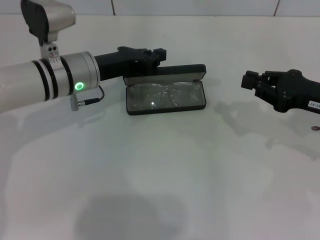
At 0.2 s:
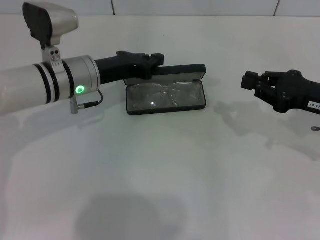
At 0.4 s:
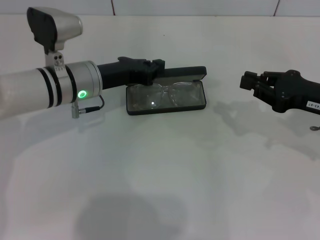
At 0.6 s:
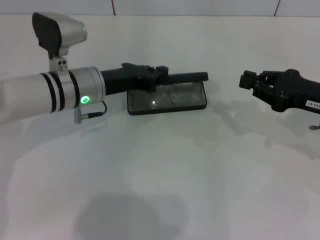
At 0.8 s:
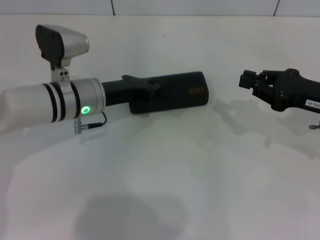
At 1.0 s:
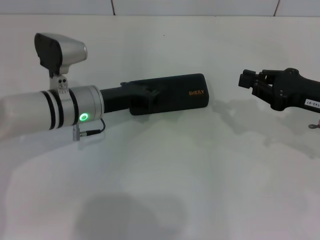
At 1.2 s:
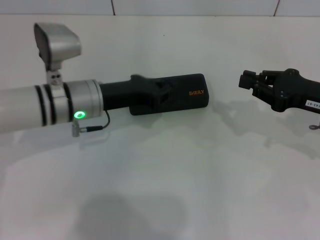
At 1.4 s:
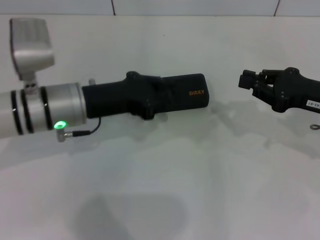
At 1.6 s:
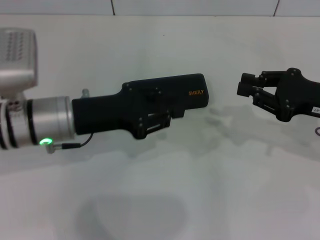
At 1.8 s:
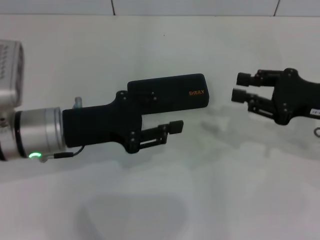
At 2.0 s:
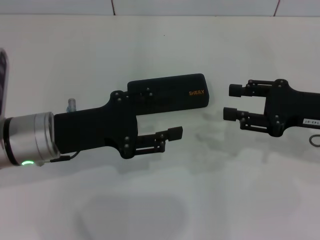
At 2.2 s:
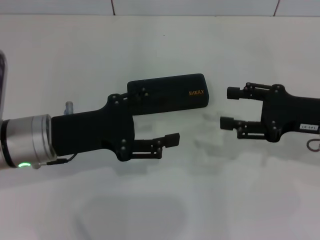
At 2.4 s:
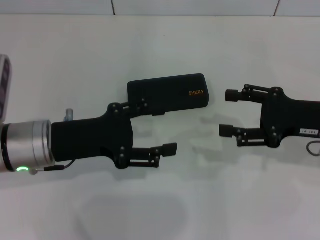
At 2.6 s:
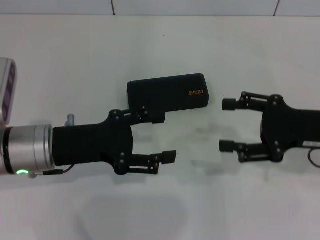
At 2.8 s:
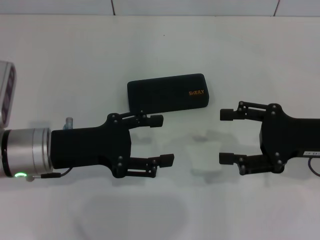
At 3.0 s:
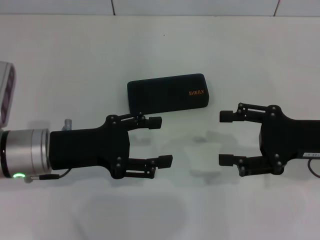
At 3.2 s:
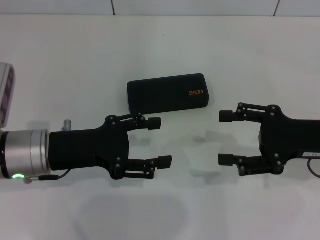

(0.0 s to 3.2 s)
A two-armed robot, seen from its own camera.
0.0 s - 1.6 s: The left gripper travels backward by some 10 cm.
1.6 s - 3.2 s: The left gripper opens; the right gripper opens its fingers.

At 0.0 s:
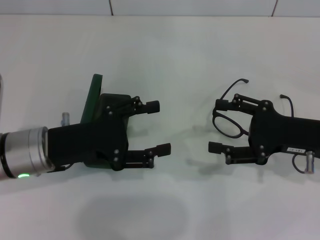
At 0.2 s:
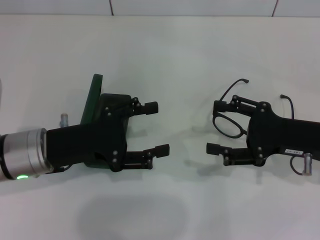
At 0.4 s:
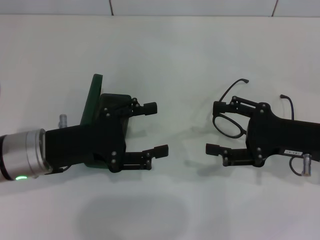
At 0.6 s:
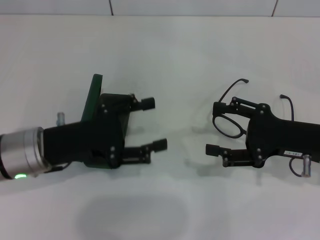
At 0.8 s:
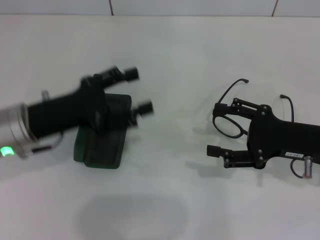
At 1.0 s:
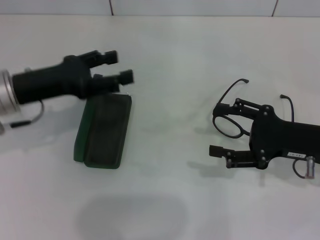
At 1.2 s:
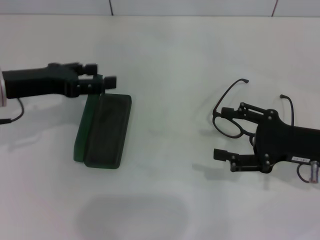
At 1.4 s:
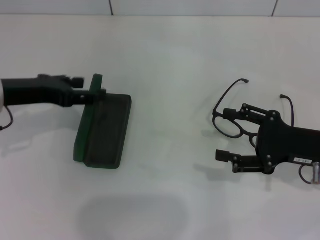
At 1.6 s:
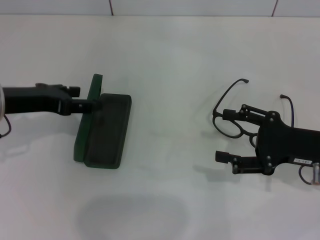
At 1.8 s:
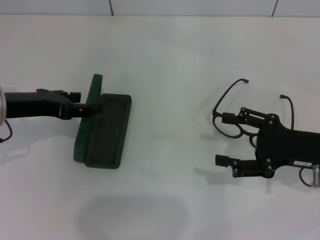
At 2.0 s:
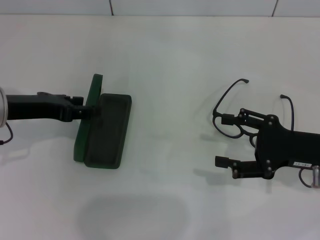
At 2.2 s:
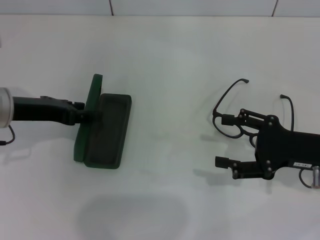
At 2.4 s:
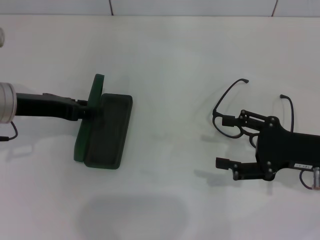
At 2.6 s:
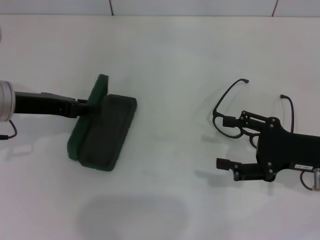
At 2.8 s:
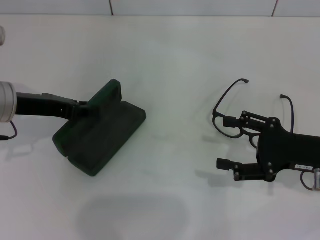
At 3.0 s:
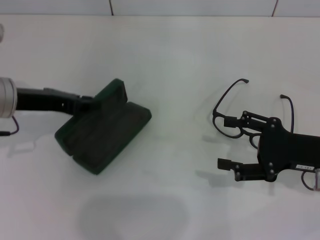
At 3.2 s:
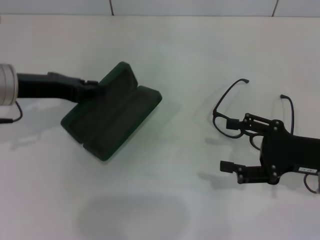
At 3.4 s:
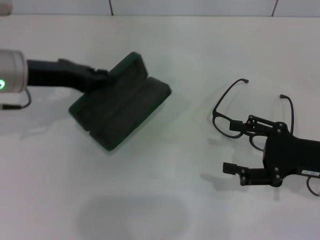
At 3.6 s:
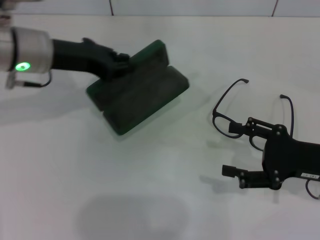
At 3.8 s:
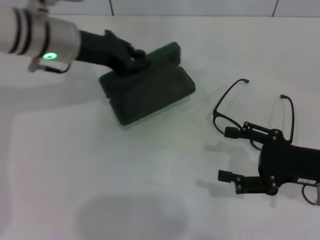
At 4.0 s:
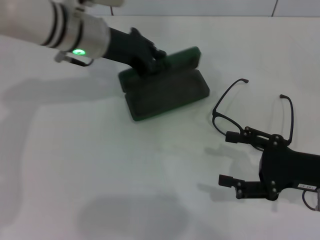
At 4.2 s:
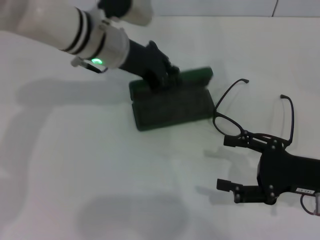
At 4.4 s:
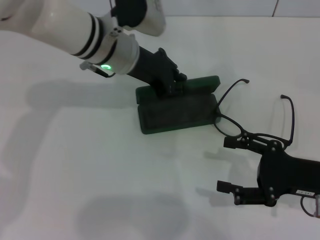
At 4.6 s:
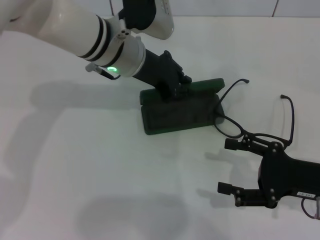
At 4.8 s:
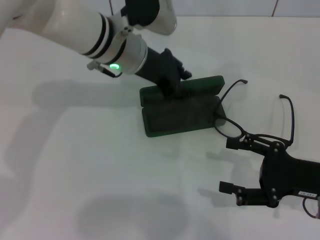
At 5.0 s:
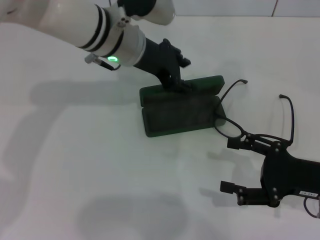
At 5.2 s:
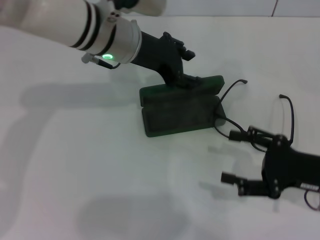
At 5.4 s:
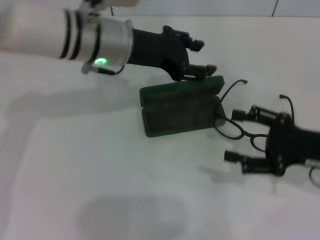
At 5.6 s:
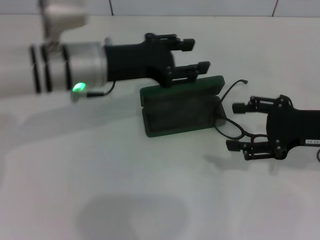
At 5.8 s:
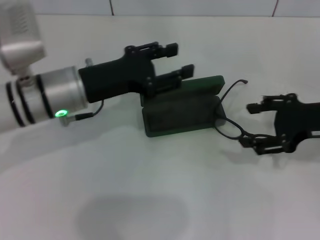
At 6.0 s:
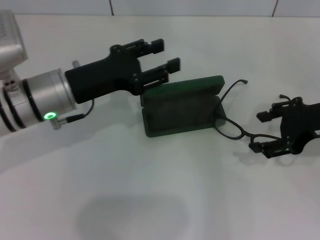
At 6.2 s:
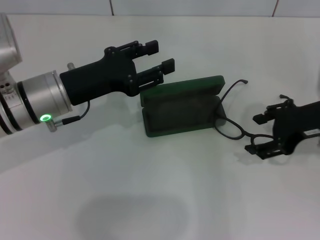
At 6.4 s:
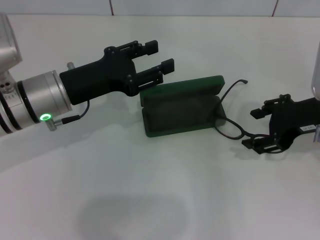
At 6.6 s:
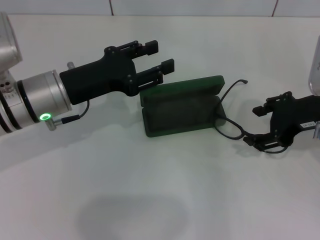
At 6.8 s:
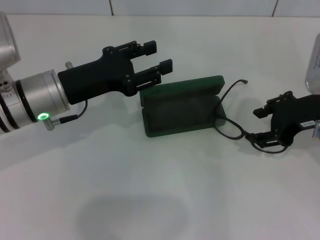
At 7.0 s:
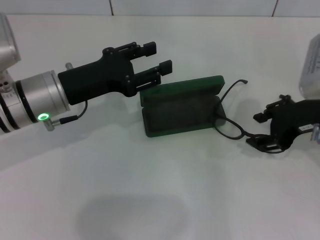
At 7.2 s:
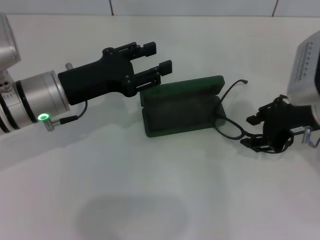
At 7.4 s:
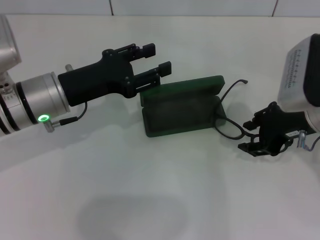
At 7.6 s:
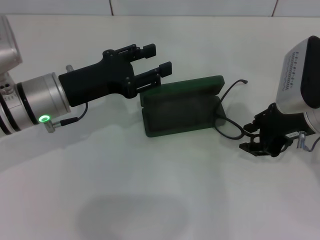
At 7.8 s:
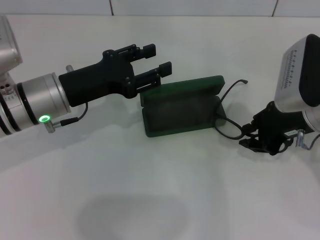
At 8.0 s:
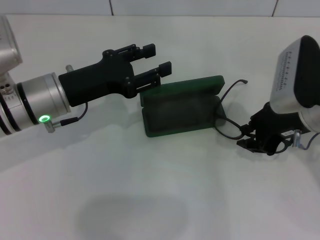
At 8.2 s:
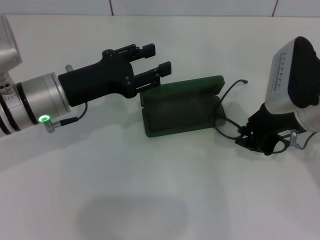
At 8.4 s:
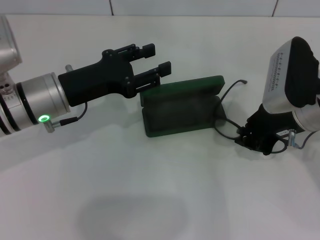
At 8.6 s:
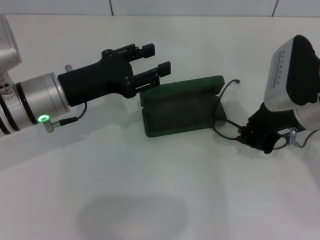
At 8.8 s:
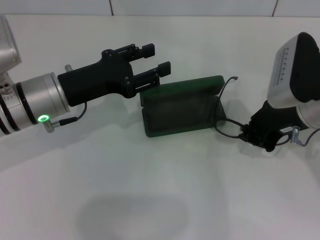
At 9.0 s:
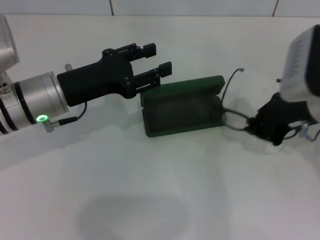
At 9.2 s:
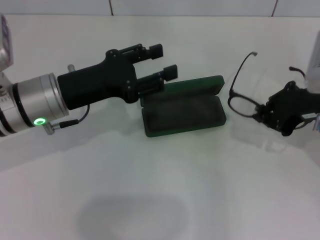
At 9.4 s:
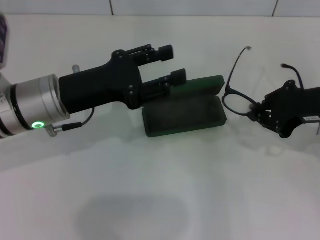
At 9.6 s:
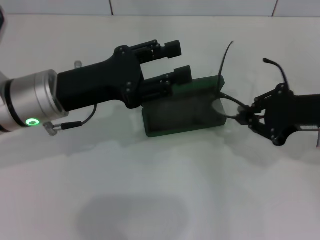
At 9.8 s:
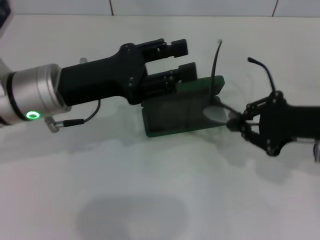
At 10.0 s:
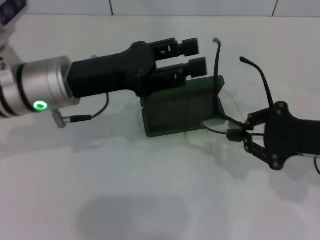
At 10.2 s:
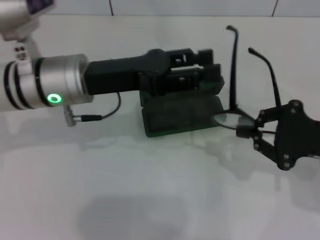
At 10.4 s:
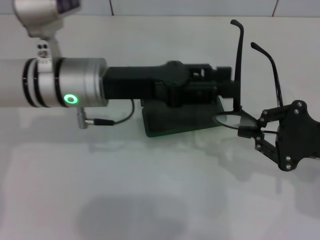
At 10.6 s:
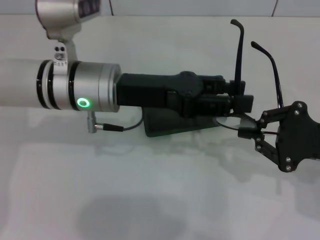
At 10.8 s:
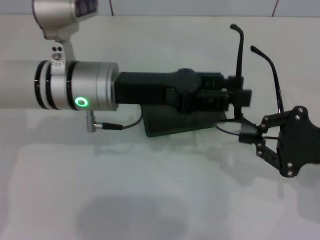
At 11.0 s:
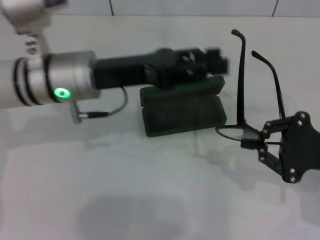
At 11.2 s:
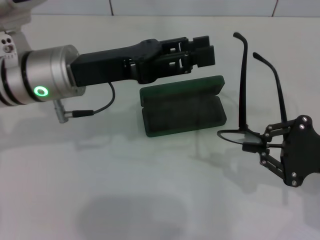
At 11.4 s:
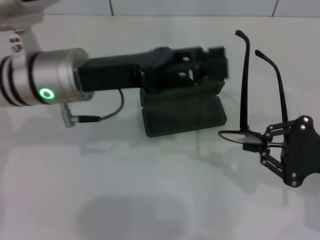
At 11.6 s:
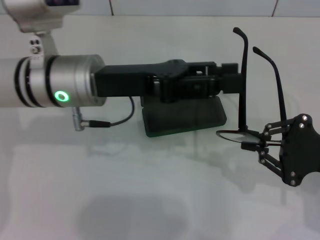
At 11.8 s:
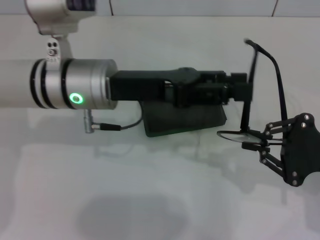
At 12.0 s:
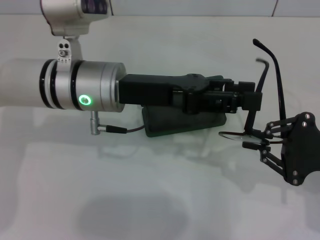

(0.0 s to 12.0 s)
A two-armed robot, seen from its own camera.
Step, 0.0 s - 2.8 s: Grab the glasses case with your left hand.
Step, 3.0 s - 4.8 s: Place the glasses case in the center of the table with your left hand.
Step, 5.2 s - 8.6 s: Grab the eyeglass frame with your right hand.
0.0 s - 1.6 s: The left gripper is displaced to the left and upward by some 10 cm.
1.6 s - 3.0 s: The left gripper closes.
3.0 s - 4.4 s: The left gripper goes approximately 20 cm to the right and forward.
4.4 s - 6.0 s: The left gripper moves to the left and backward, roughly 10 cm, and opens; the right gripper is displaced upward and forward by some 10 cm.
6.0 s - 7.6 s: The right gripper shifts by some 5 cm.
7.6 s - 9.0 s: The right gripper closes up.
9.0 s - 10.4 s: The left gripper shifts roughly 5 cm to the right. The right gripper heads backward and to the right, covering approximately 10 cm.
10.4 s - 12.0 s: There are only small adjustments of the grippers.

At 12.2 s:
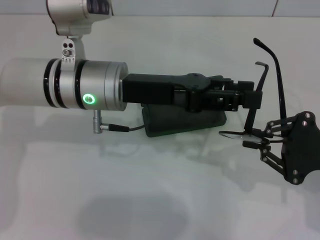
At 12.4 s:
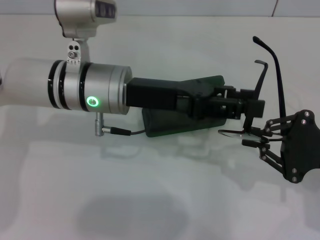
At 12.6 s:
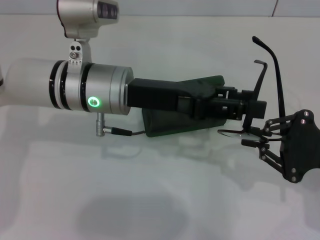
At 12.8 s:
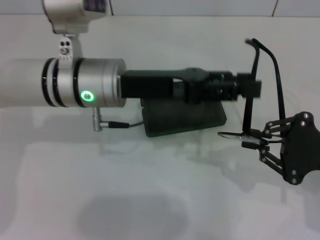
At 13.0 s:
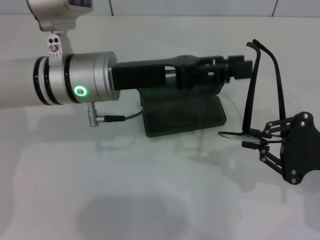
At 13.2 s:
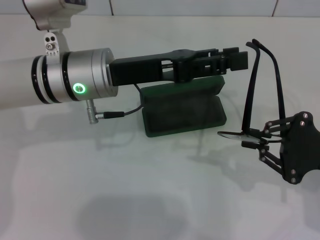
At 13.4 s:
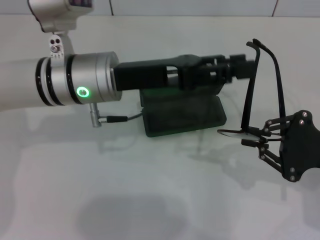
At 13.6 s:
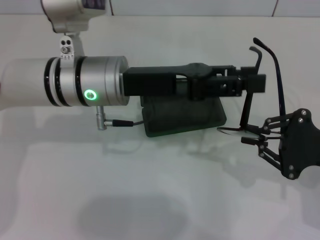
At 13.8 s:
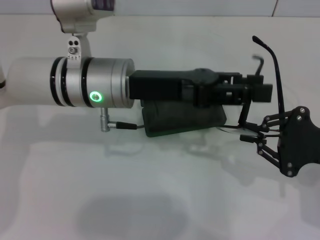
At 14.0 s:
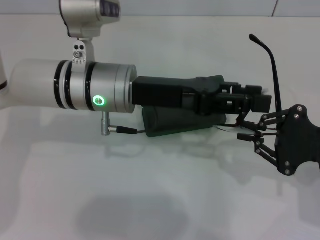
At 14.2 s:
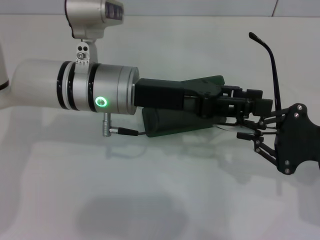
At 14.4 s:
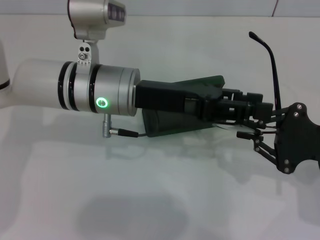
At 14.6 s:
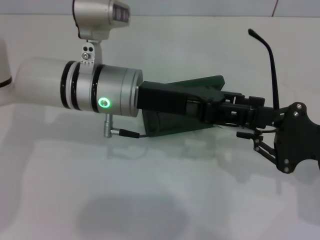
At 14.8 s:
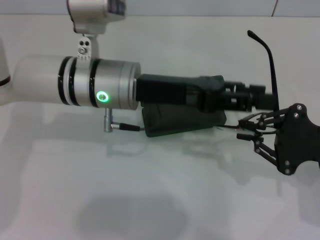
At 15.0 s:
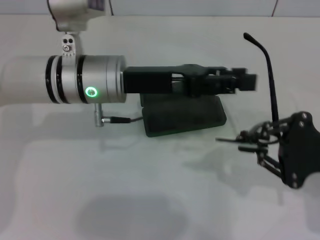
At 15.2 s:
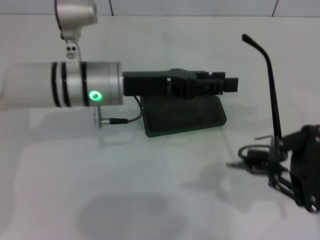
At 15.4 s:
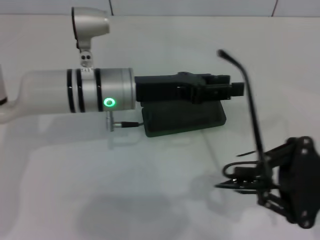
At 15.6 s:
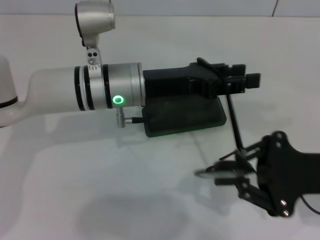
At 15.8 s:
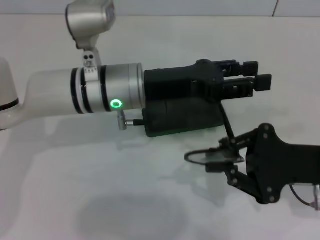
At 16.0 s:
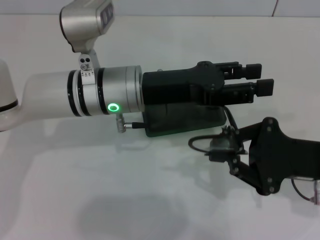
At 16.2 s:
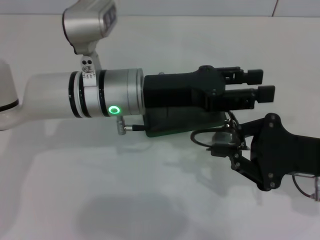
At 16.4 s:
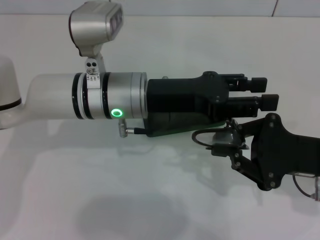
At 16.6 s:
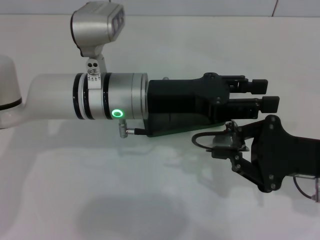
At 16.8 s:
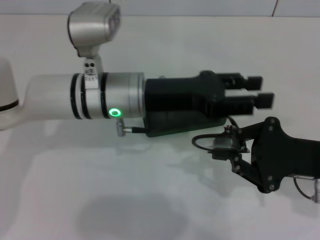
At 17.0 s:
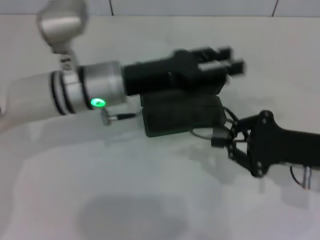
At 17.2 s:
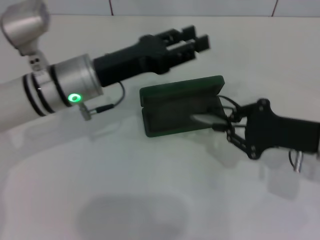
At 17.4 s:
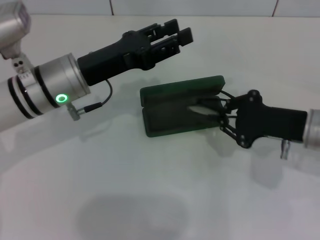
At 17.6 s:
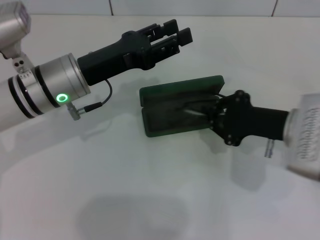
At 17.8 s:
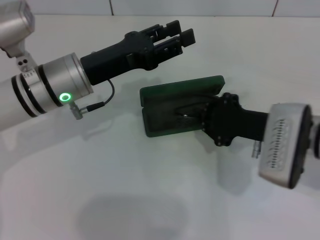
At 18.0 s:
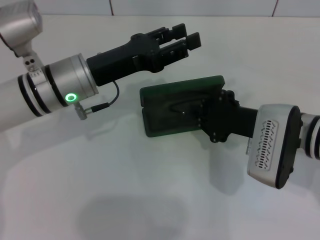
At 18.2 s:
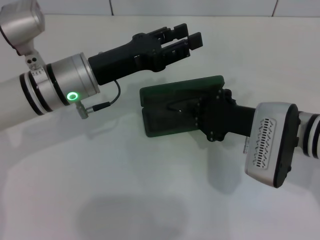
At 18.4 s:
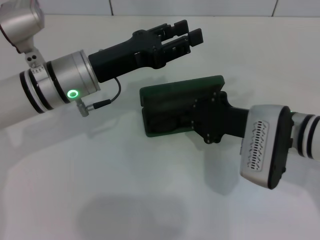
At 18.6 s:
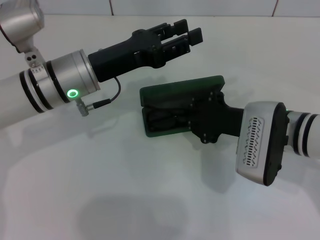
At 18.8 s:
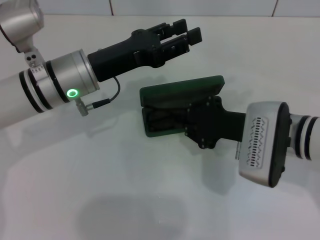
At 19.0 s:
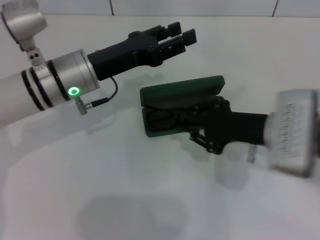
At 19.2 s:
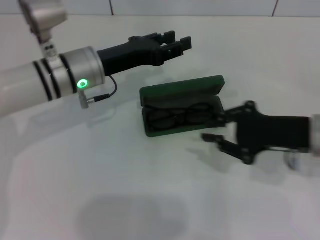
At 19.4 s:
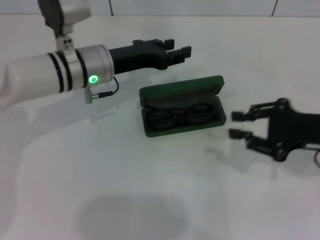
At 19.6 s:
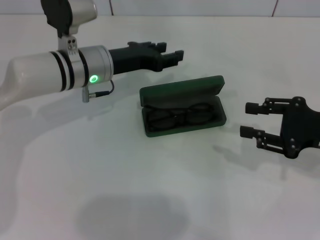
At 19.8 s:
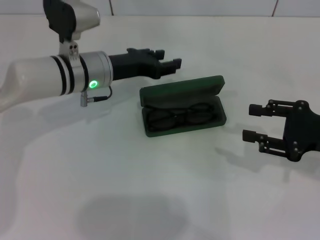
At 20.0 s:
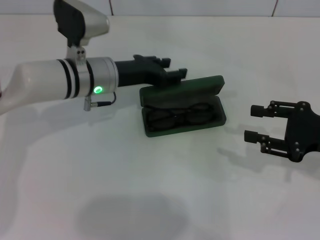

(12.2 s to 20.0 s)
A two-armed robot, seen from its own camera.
Step, 12.2 s - 16.6 s: Fold the frame with your left hand.
Step, 17.0 s - 19.0 s: Put the glasses into the case with your right hand.
12.2 s - 13.8 s: The grippers move only a little.
15.4 s - 16.8 s: The grippers move only a little.
16.8 s - 18.4 s: The two grippers go approximately 5 cm to the left.
18.4 s - 20.0 s: The left gripper shifts by roughly 5 cm. The right gripper goes some 15 cm to the right, and opens.
